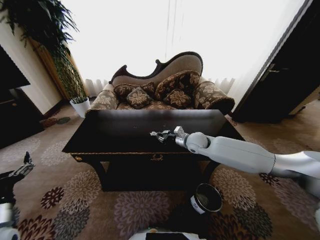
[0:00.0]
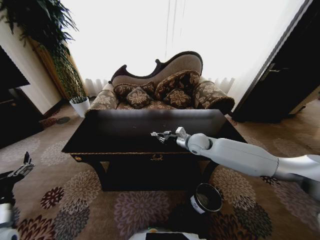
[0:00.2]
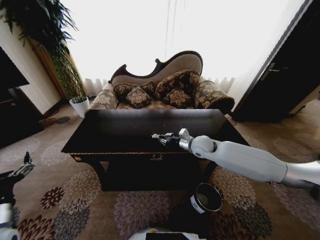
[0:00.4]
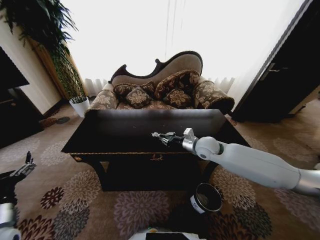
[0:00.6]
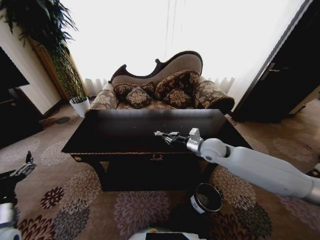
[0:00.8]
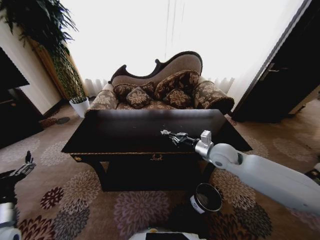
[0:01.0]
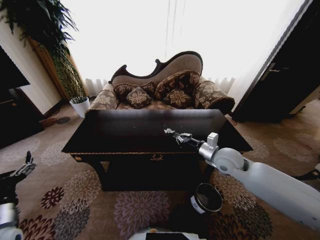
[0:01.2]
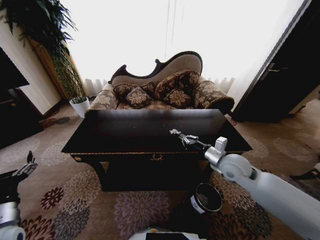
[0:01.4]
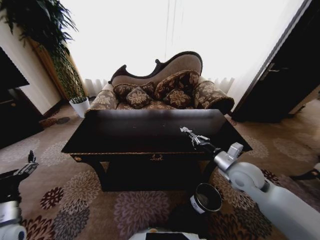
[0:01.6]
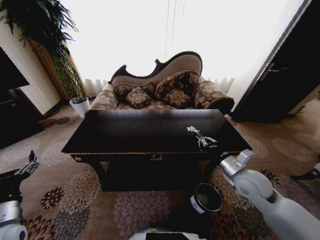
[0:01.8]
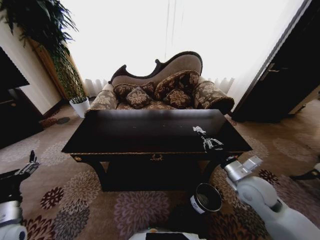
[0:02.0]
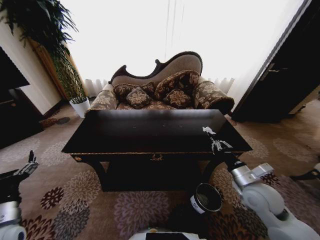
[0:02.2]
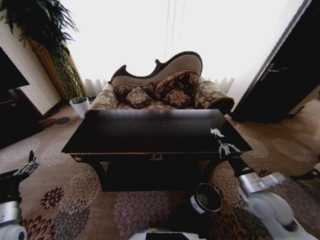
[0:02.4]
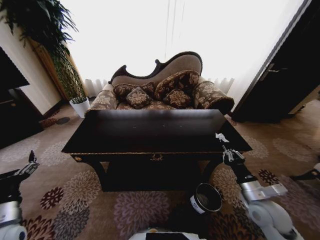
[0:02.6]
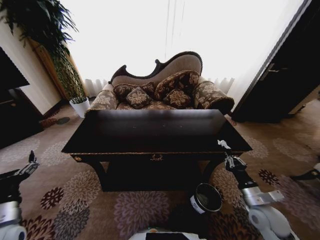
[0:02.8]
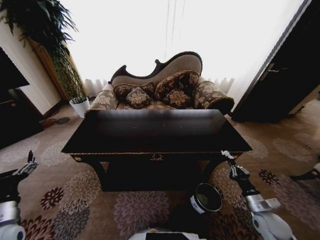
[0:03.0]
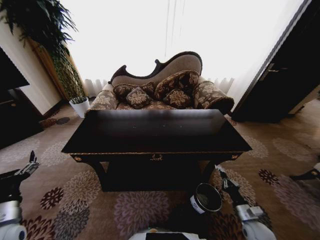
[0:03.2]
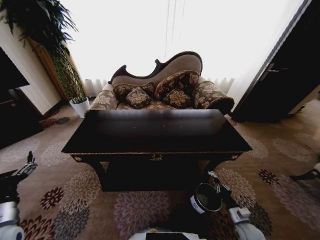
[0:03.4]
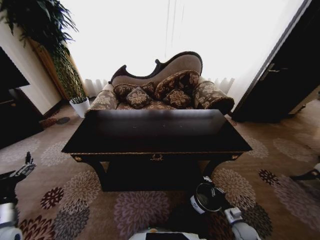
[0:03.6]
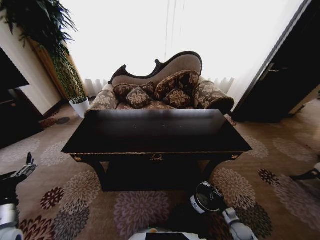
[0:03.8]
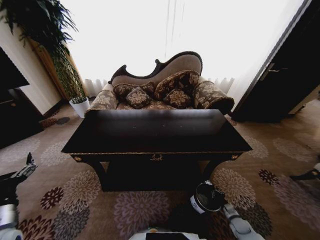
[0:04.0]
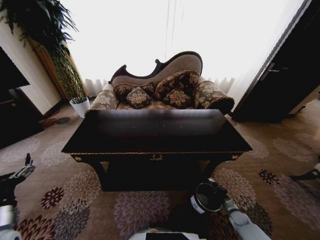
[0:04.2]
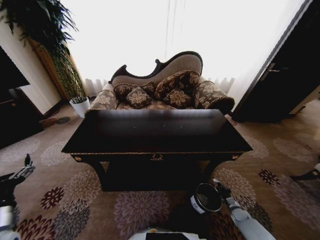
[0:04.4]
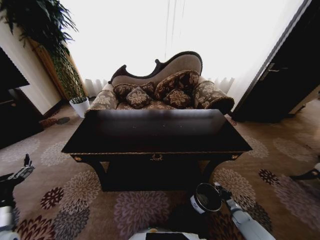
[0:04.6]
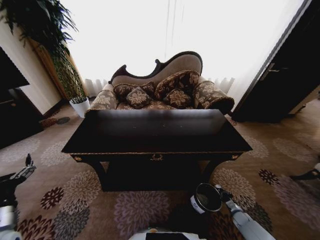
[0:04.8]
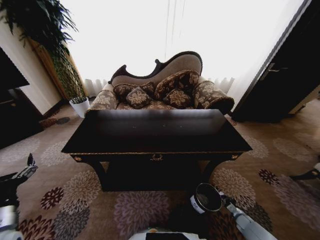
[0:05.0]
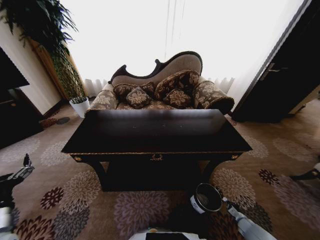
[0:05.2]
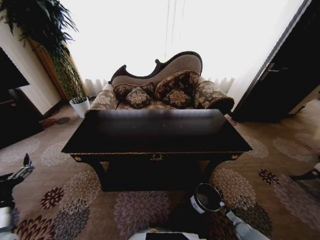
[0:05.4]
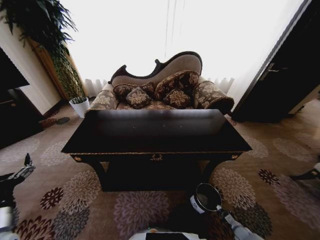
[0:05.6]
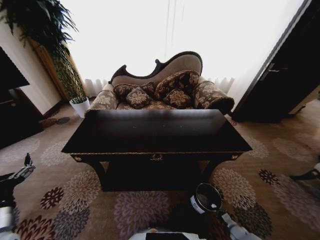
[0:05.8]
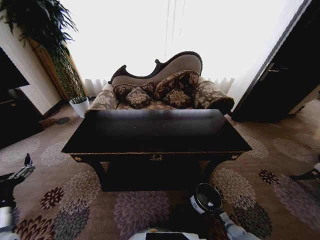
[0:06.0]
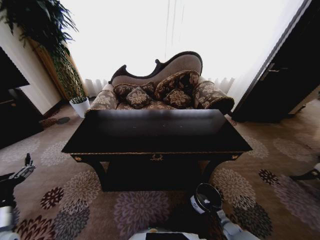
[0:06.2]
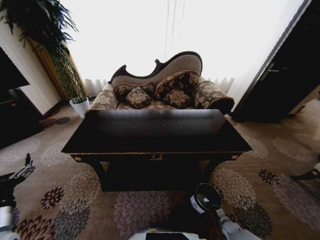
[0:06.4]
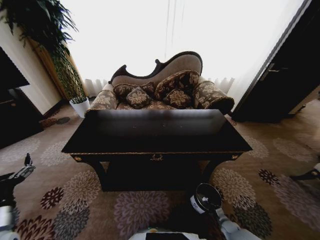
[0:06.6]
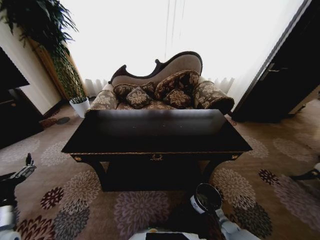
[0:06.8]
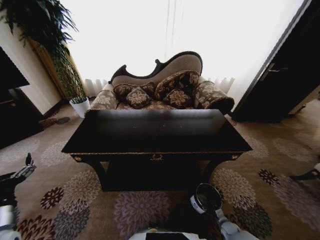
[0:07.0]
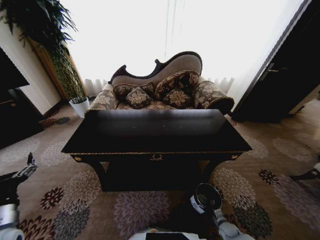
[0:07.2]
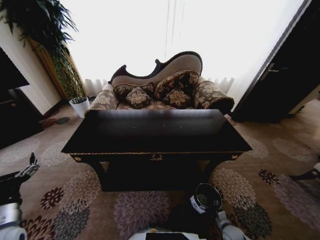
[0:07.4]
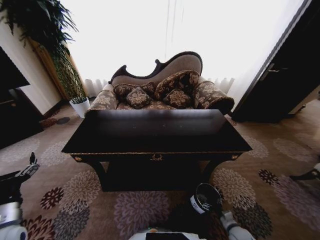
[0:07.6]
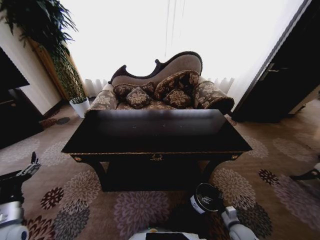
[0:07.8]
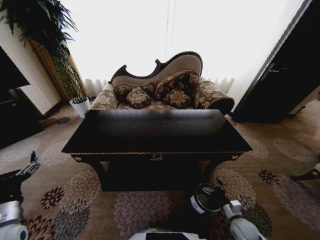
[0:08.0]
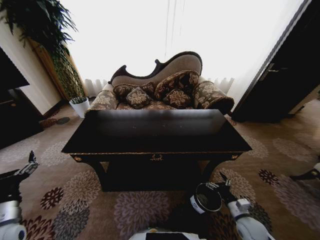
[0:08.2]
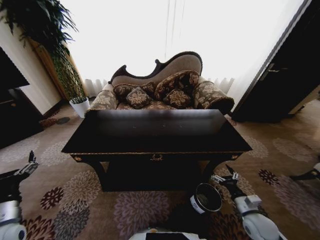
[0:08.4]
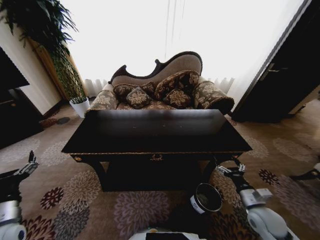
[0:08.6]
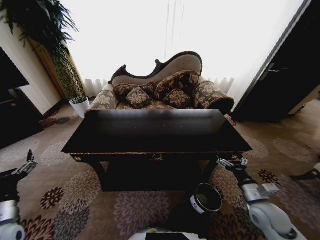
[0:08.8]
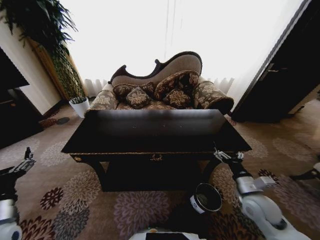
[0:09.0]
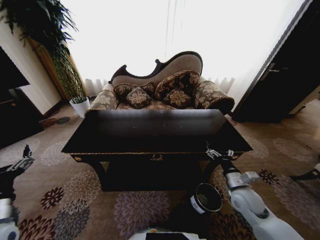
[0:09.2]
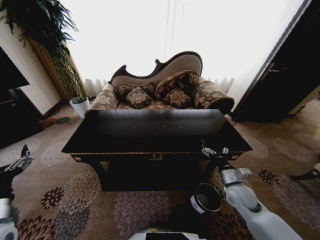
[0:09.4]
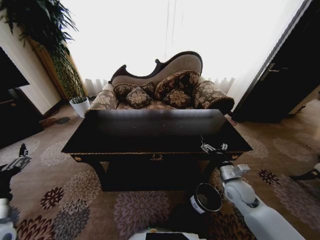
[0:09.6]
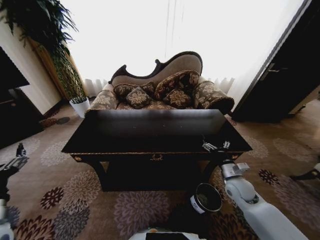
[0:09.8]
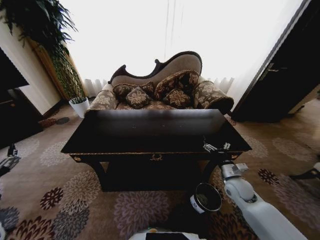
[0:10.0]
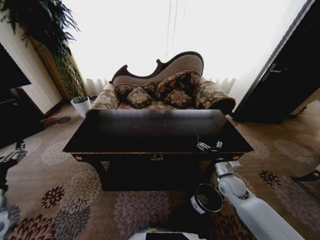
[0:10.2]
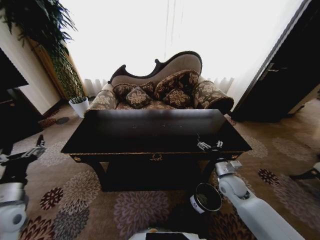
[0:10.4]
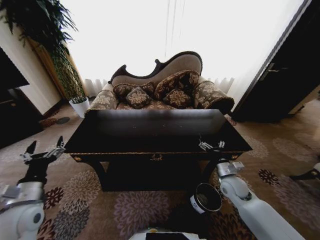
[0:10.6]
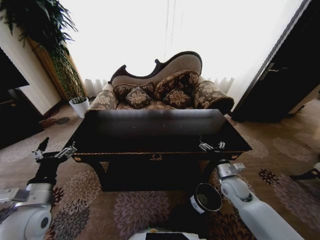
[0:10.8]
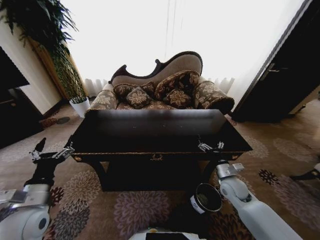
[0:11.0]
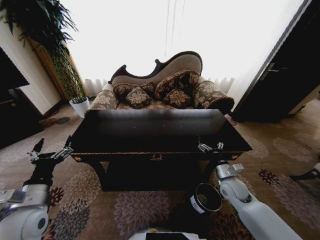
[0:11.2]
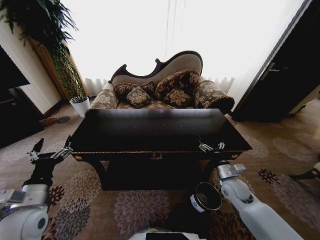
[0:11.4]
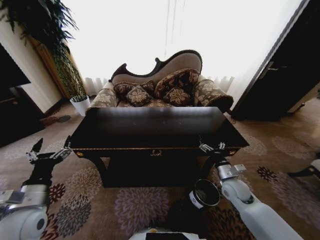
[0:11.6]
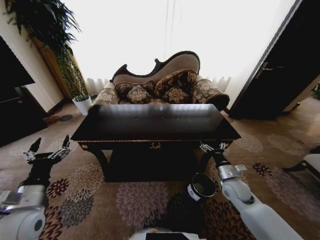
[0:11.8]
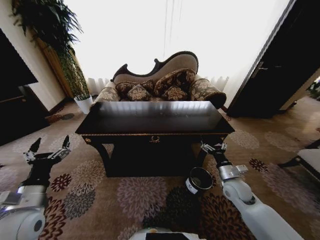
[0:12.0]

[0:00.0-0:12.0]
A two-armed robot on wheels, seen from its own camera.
Task of the whole recording: Move to the front of the table and place the trash on the table into the trash bin.
0:00.0 to 0:01.6: The right gripper goes approximately 20 cm backward and to the right.
0:01.6 to 0:03.0: The right gripper heads downward, to the right and backward, covering about 25 cm.
0:03.0 to 0:04.4: The right gripper heads downward, covering some 25 cm.
0:04.4 to 0:06.0: The right gripper shifts roughly 5 cm backward.
0:07.6 to 0:09.0: The right gripper moves upward, approximately 30 cm.
0:09.0 to 0:10.4: The right gripper goes some 10 cm forward.
0:10.4 to 0:12.0: The left gripper moves to the right, some 5 cm.

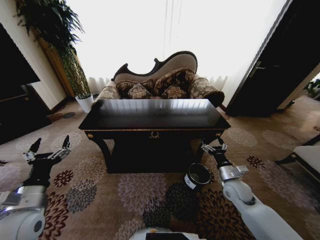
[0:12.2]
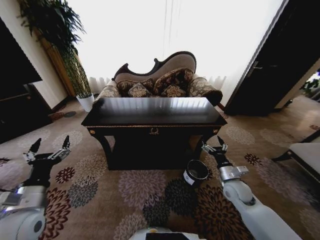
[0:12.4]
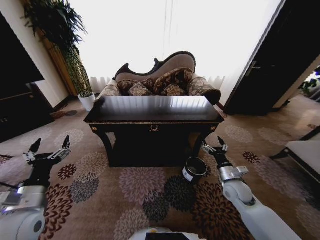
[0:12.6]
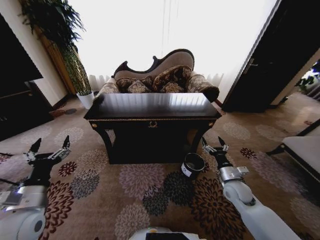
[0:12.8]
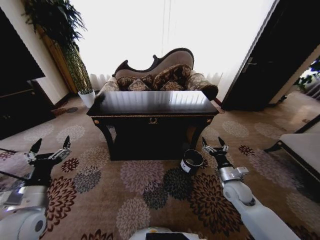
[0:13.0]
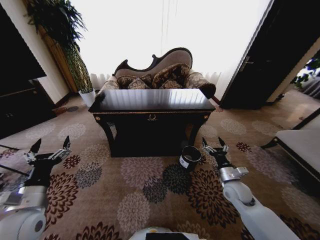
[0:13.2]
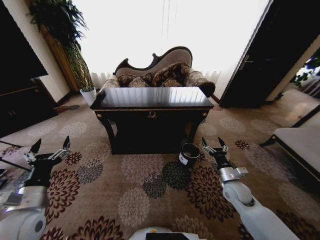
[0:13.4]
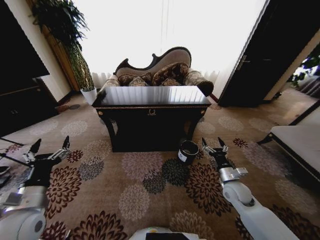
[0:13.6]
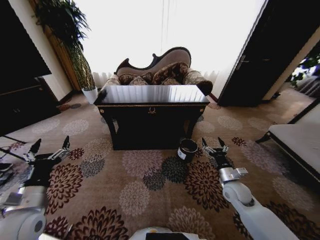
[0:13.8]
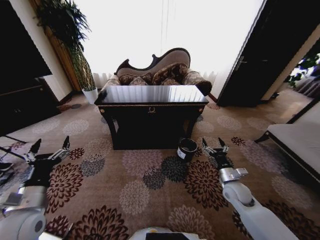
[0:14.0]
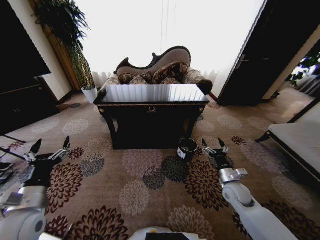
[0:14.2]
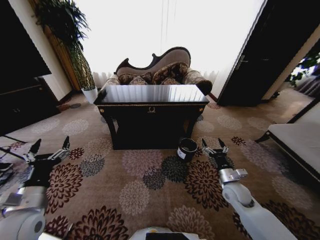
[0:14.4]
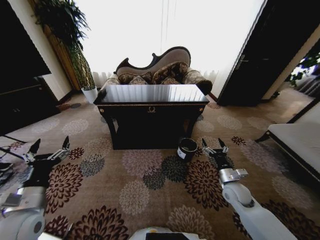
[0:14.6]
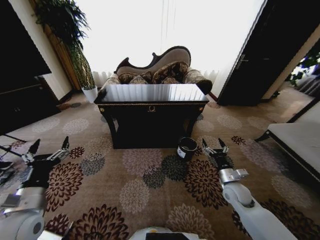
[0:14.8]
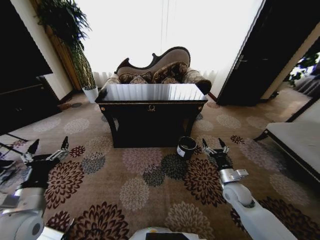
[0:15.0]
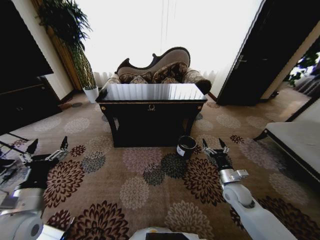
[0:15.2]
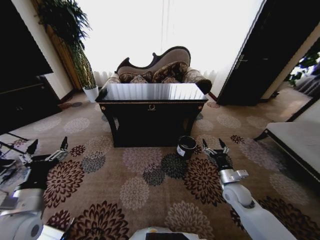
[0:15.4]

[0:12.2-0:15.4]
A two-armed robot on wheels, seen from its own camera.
Task of the whole recording: Move to the front of the table and place the trash on the table into the trash bin.
0:13.8 to 0:15.4: The two grippers keep their place.

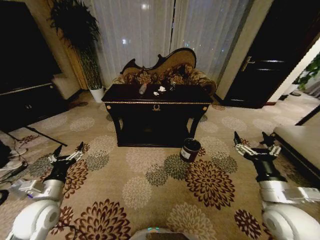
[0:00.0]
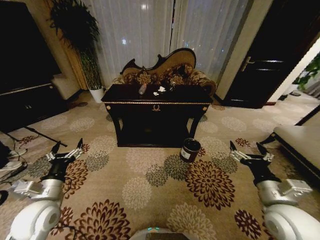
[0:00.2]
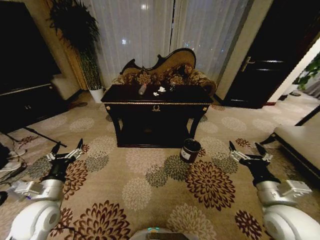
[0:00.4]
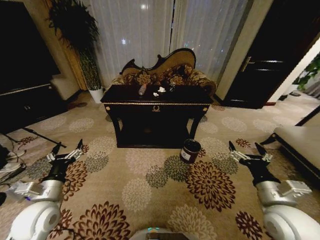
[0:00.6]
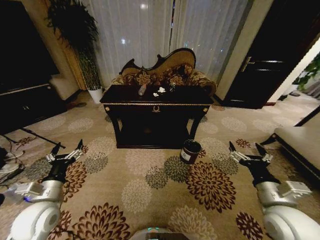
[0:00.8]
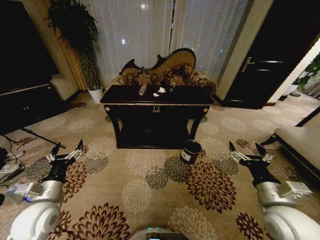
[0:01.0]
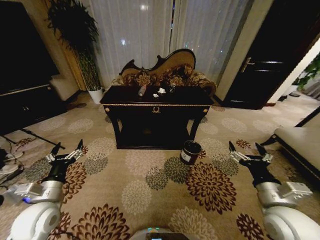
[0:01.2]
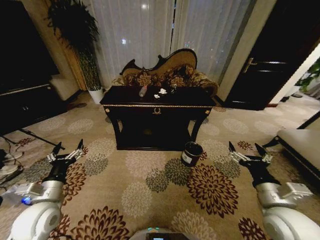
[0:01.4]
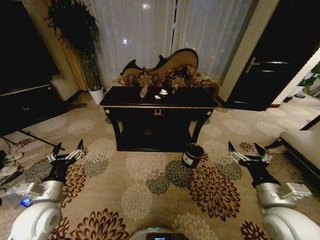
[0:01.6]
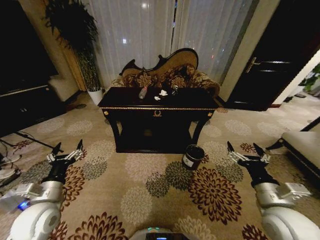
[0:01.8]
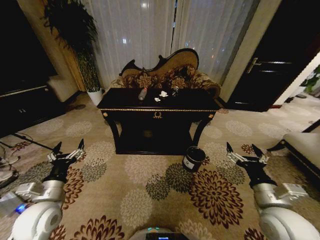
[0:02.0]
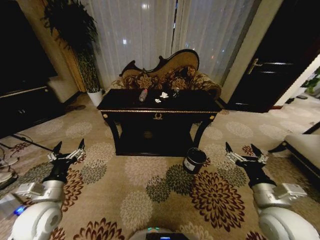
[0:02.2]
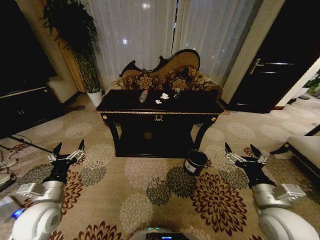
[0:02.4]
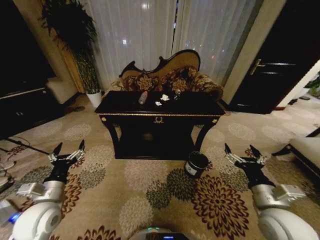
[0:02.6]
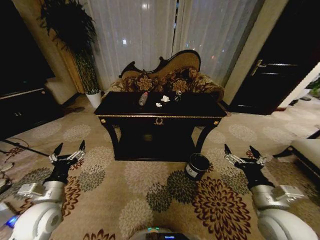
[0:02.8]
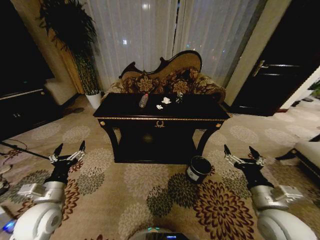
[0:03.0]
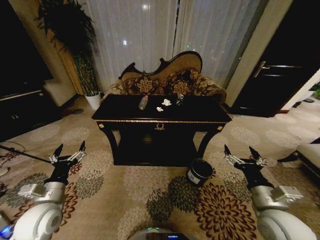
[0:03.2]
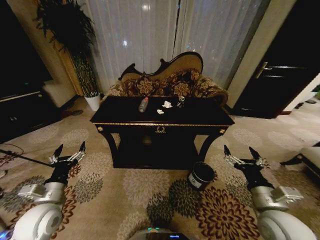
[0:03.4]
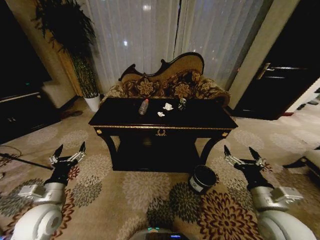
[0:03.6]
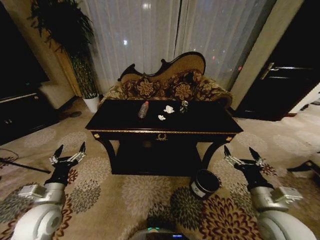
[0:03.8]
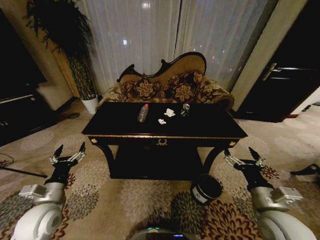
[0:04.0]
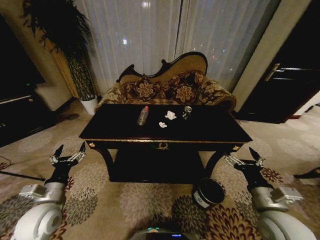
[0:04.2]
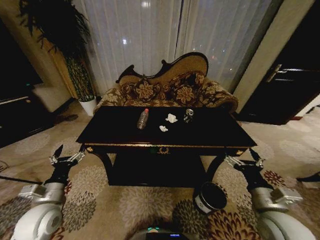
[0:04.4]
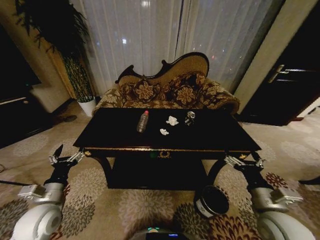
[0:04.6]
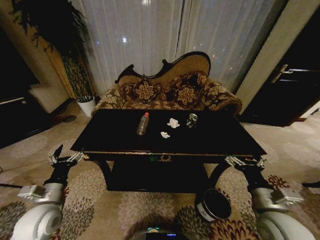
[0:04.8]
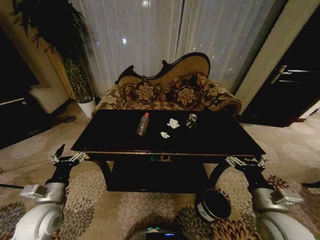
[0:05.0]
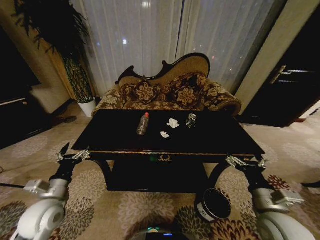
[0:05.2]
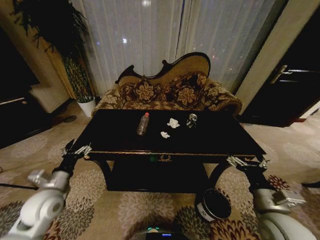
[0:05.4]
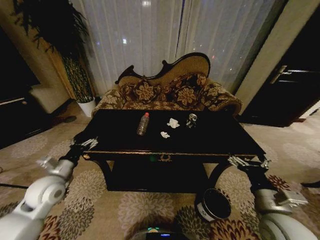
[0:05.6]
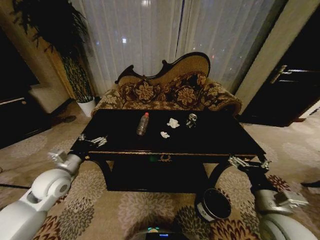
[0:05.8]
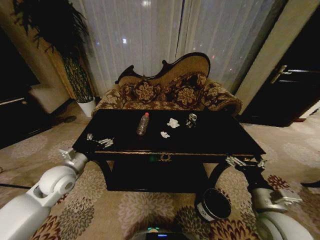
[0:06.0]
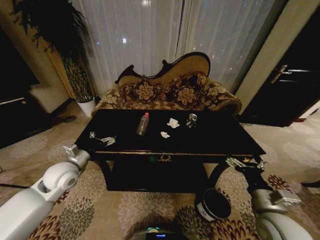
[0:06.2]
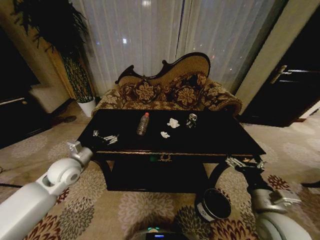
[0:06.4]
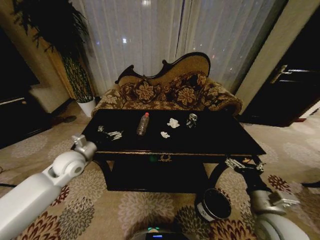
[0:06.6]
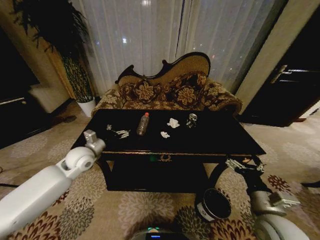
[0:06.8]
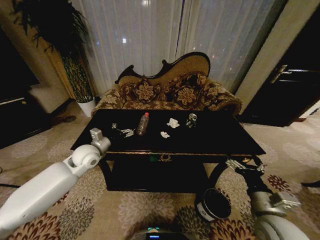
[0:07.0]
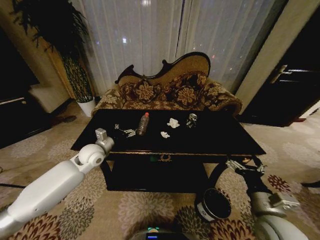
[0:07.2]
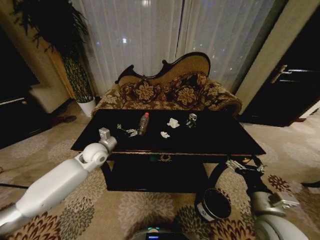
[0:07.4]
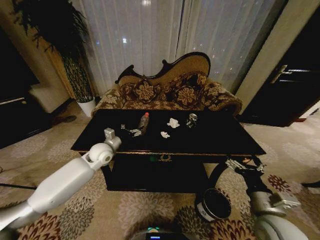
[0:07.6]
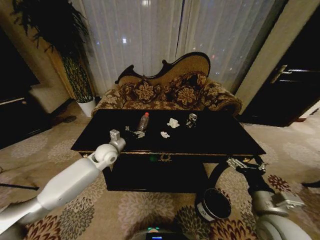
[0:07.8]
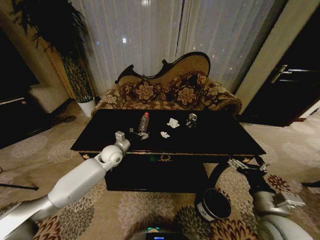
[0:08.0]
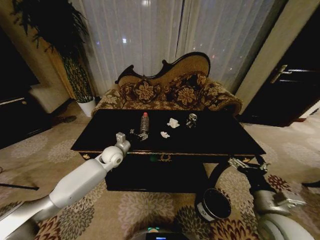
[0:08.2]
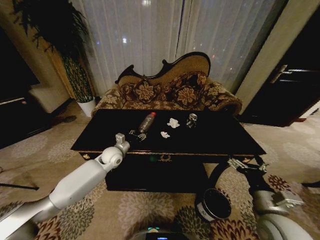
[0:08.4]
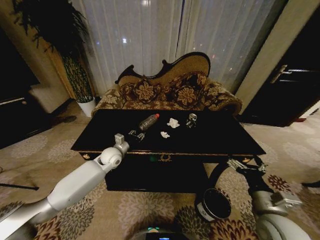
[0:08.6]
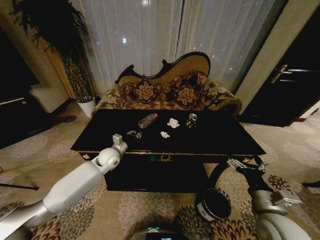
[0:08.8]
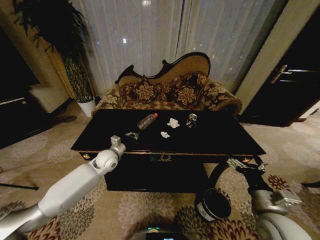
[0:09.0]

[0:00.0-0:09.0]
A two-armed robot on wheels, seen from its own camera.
Task of the whole recording: Move to the front of the table and place the trash on the table into the trash bin.
0:04.4 to 0:06.0: The left gripper goes approximately 10 cm forward.
0:06.0 to 0:07.6: The left gripper is displaced forward and to the right by some 15 cm.
0:07.6 to 0:09.0: The left gripper closes.
